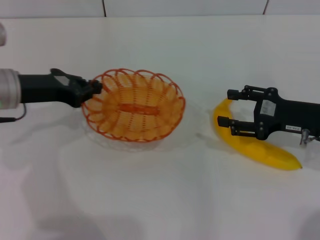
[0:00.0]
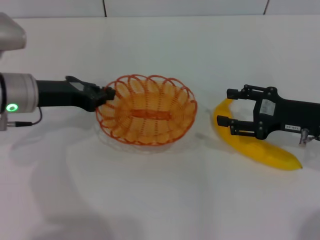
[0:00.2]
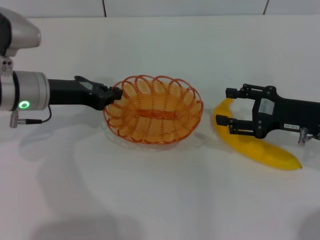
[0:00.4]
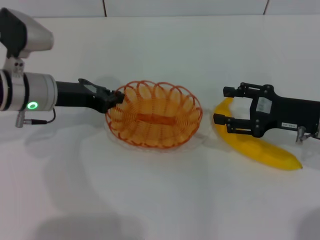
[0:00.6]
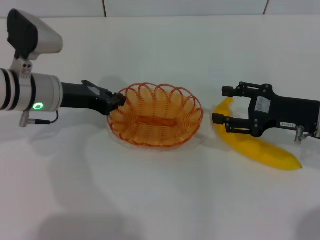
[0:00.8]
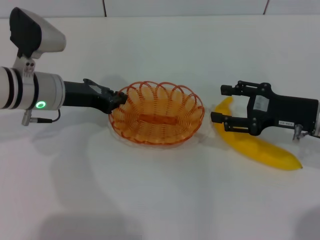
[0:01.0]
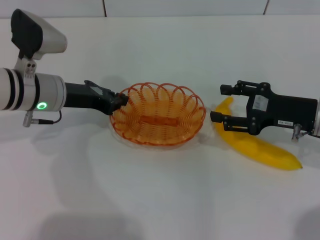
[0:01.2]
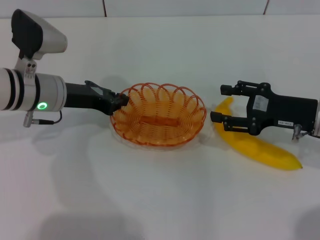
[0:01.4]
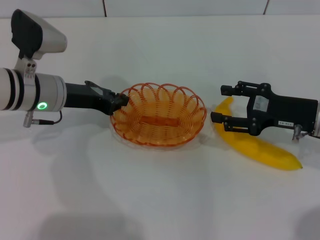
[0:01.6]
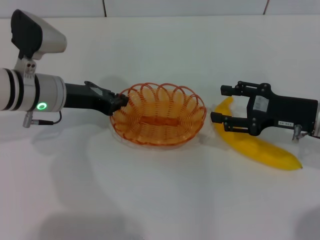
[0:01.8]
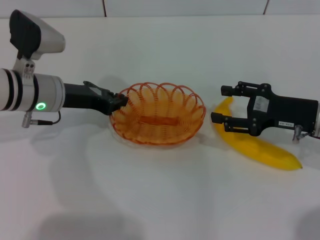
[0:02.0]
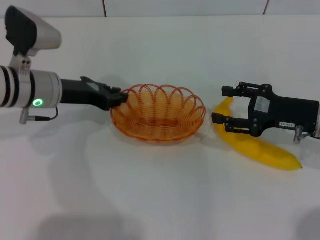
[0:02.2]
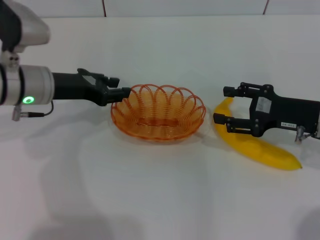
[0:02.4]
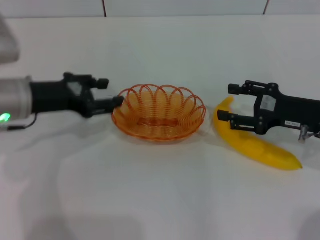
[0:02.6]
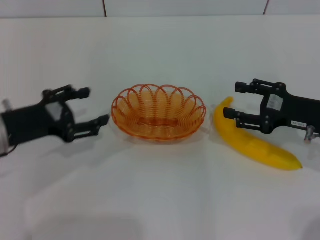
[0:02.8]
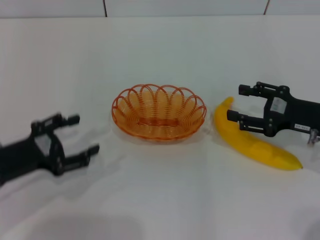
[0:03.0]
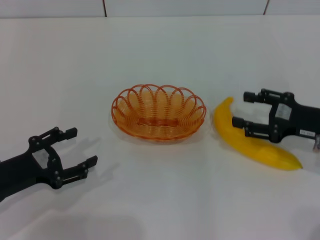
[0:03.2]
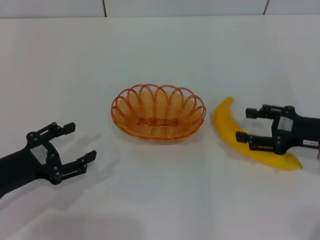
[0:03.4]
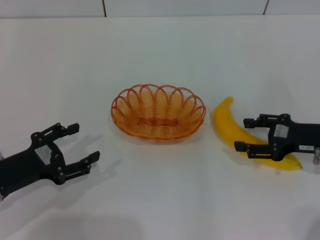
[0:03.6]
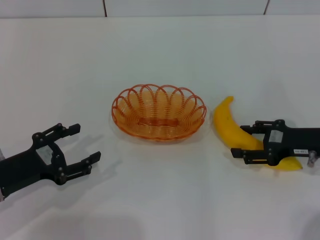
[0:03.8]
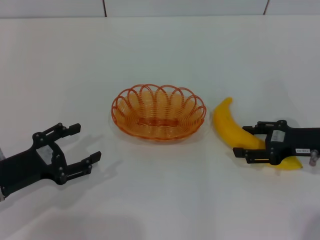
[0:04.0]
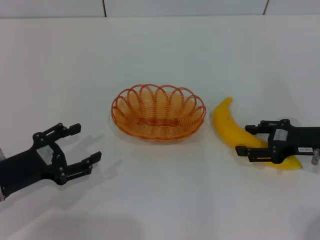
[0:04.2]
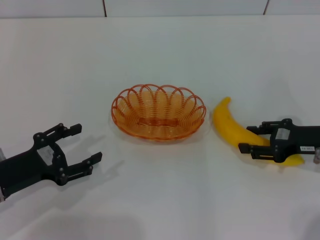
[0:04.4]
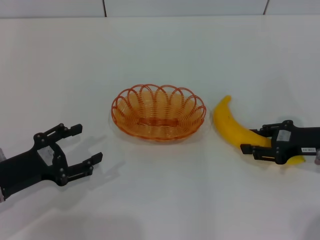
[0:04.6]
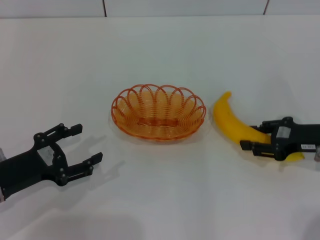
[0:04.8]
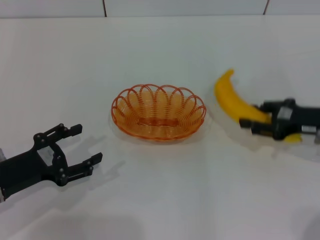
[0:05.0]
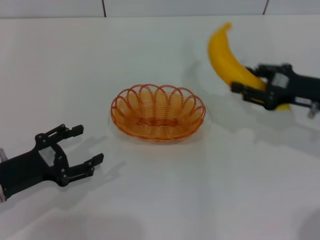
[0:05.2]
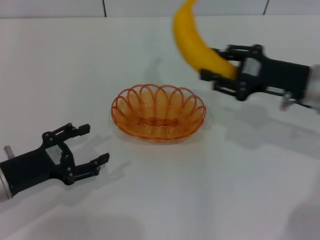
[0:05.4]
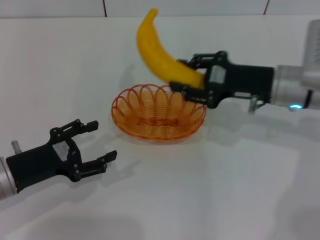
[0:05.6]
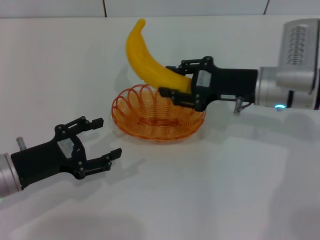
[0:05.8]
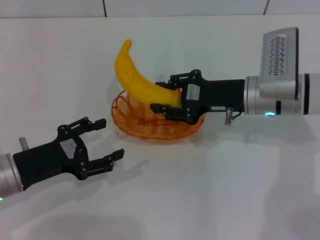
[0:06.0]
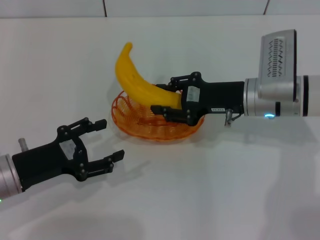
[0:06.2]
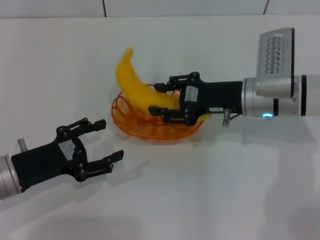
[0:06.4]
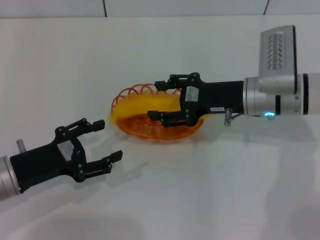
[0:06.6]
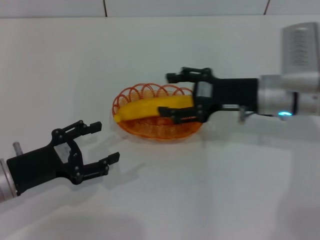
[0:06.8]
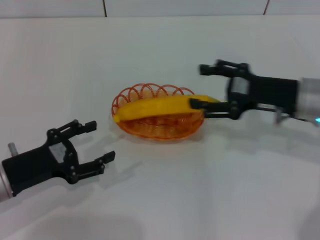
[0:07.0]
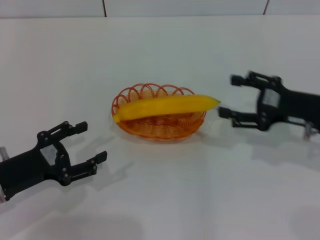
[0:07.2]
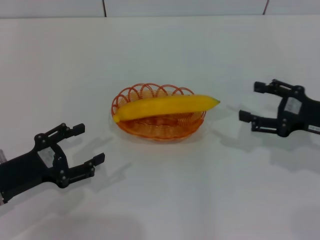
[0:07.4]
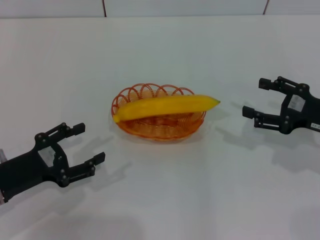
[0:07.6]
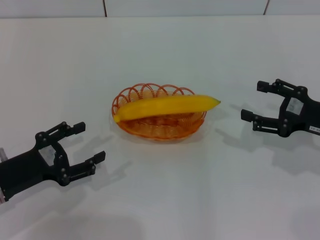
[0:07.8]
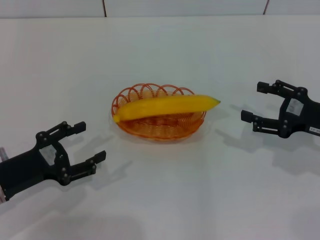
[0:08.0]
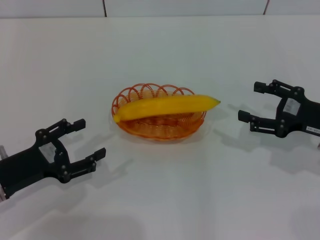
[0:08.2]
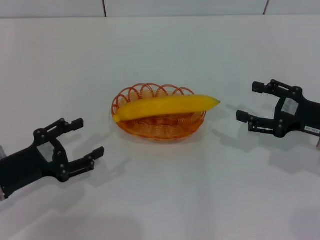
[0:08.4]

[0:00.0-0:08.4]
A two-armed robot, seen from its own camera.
Step, 0:00.0 to 0:02.6: Place the basket in the center of view with the left gripper.
Step, 0:02.8 to 0:05.0: Pick up the banana with the right gripper.
Step, 0:05.2 to 0:07.0: Place the banana into the basket with the right gripper.
0:00.0 to 0:01.4: The left gripper travels to the right by roughly 5 cm.
0:01.4 to 0:02.8: The left gripper moves backward and to the left, approximately 10 cm, and opens up.
0:02.8 to 0:04.2: The left gripper goes some 10 cm backward and downward.
0:04.2 to 0:05.6: The right gripper travels to the left and forward by some 10 cm, and closes its fingers.
0:05.6 to 0:07.0: The right gripper opens up.
0:07.0 to 0:08.4: The right gripper travels to the right by roughly 5 cm.

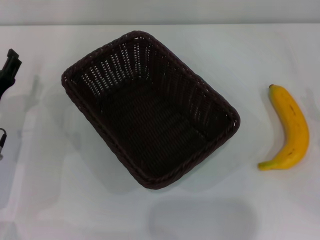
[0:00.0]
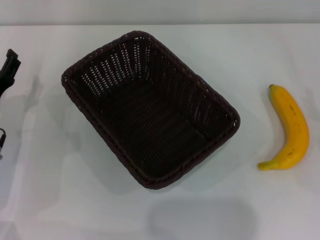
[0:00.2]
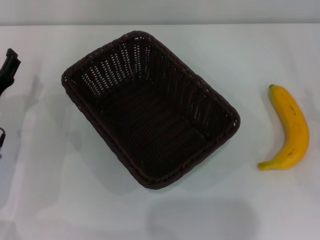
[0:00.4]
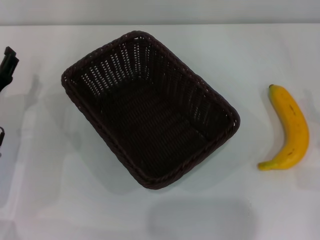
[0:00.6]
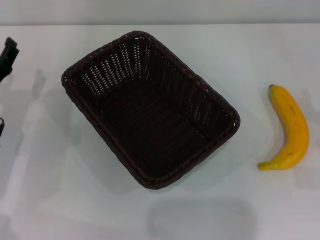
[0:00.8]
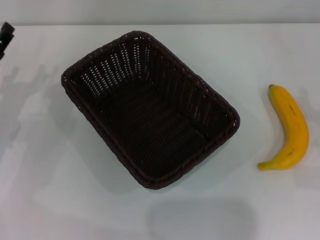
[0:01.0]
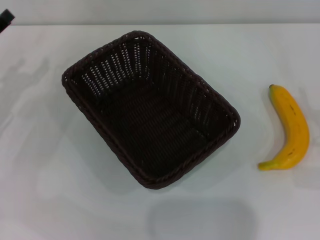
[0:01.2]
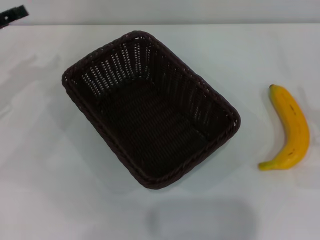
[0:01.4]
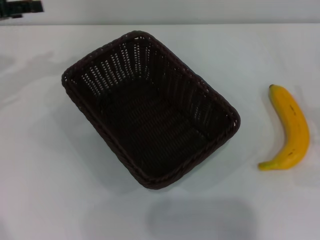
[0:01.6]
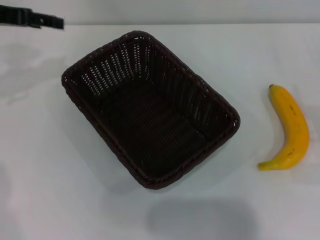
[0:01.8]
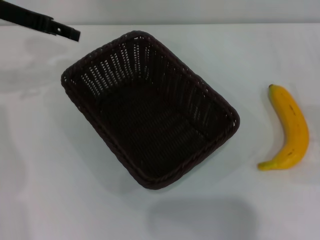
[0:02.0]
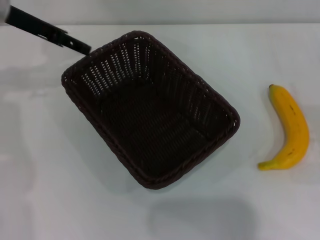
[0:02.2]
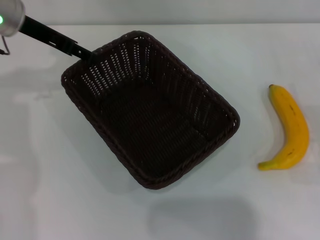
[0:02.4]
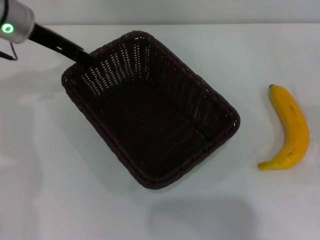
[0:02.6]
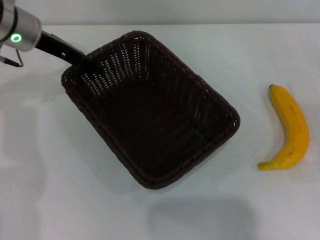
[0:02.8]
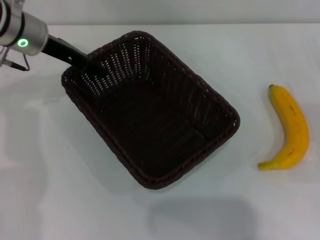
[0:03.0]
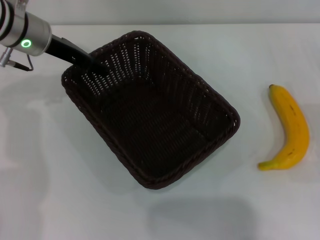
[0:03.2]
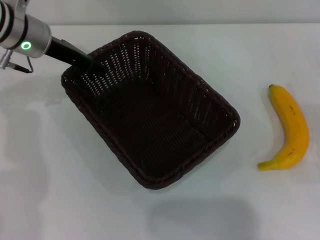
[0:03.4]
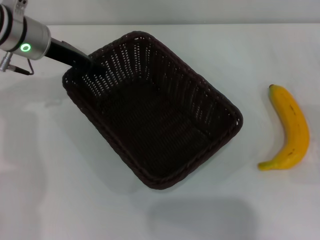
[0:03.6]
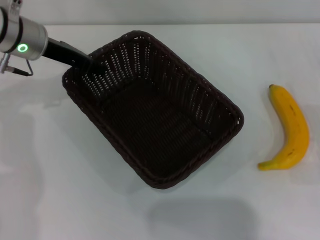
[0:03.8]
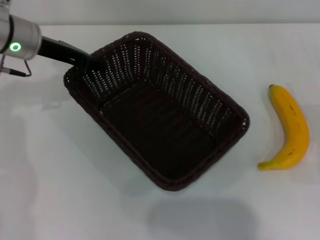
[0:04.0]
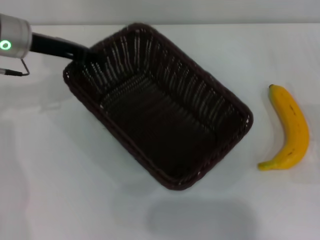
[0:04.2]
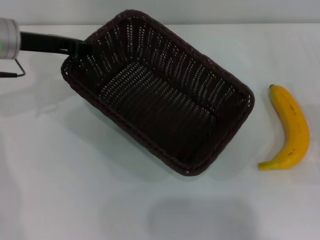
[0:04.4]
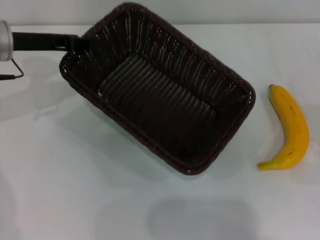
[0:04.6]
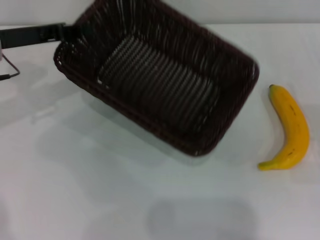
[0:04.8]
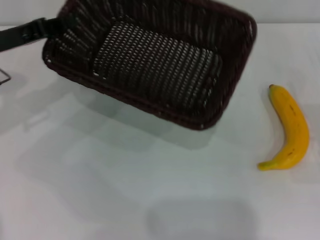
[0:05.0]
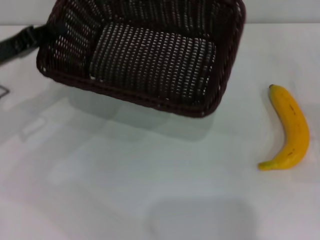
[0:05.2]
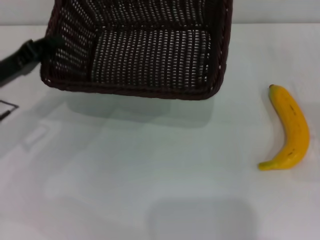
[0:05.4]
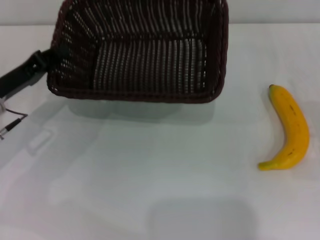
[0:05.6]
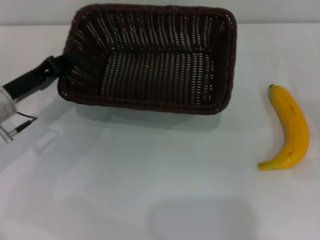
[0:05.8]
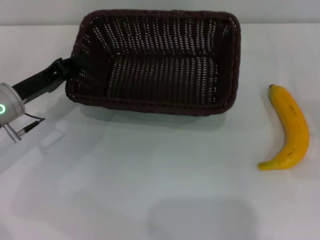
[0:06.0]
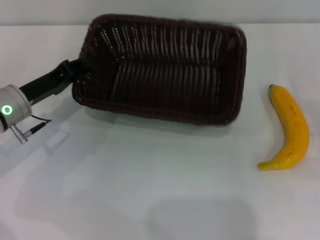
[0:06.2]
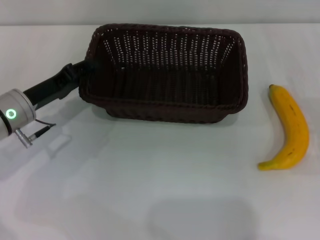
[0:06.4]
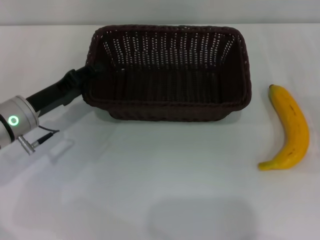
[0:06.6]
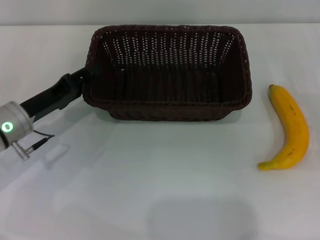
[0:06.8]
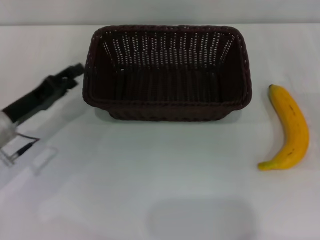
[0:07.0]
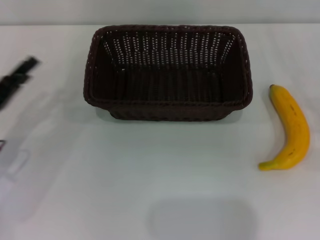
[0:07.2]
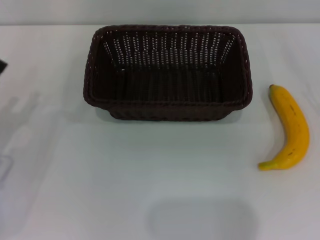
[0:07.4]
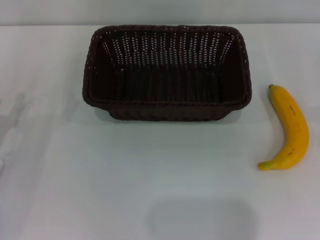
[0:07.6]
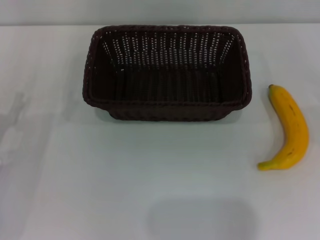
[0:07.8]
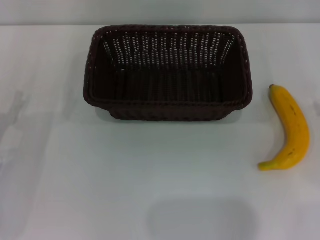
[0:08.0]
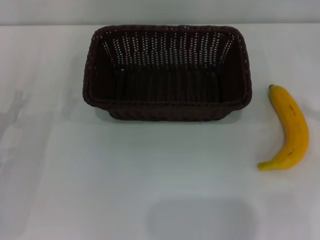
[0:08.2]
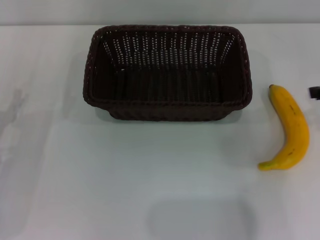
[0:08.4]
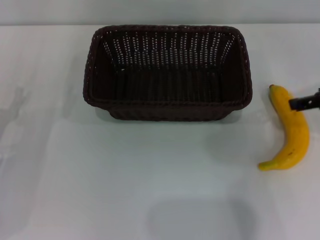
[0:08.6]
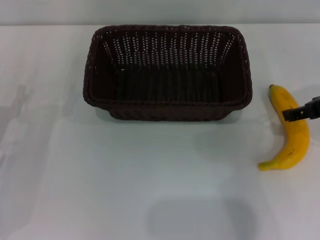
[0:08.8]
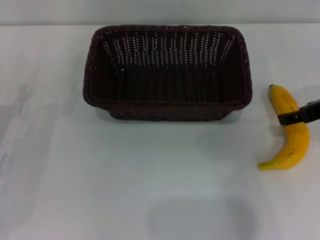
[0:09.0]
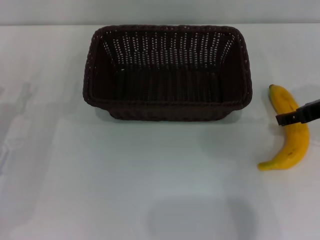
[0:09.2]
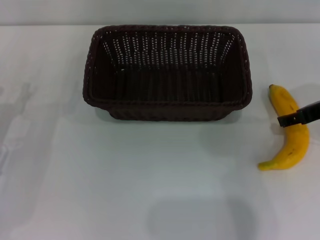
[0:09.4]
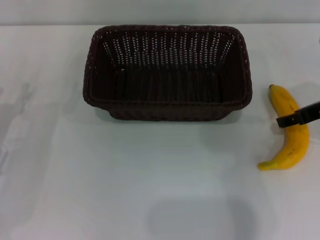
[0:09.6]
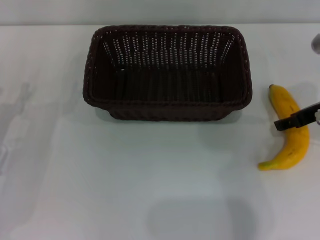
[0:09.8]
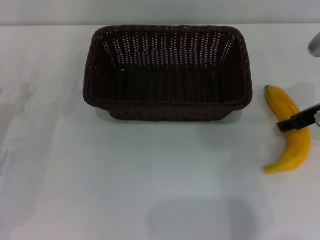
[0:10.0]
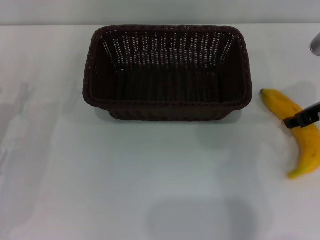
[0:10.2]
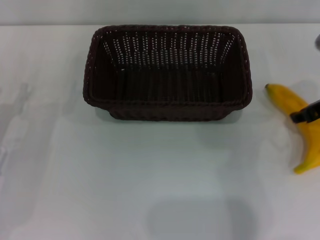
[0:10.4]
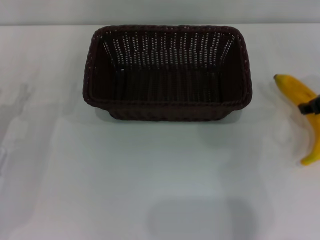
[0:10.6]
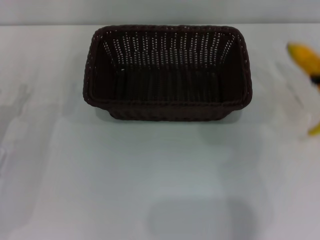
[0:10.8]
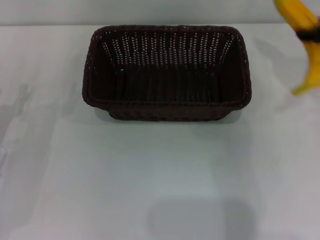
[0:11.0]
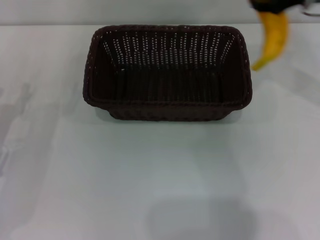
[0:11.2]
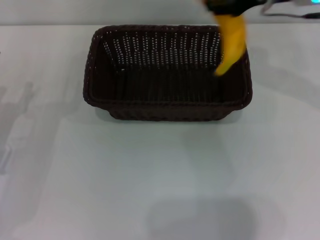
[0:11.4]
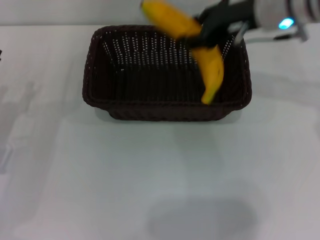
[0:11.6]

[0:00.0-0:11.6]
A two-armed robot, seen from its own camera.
Step, 0:00.0 to 0:04.4: Pick up the dark basket with the left gripper.
Step, 0:04.8 to 0:07.0: Place the dark basket in the center of view with the left gripper.
Step, 0:07.2 to 0:10.6: Pick up the banana with the right gripper.
0:00.0 to 0:01.4: The left gripper travels upward, forward and to the left by some 15 cm.
0:01.4 to 0:02.8: The left gripper moves to the right and forward, roughly 15 cm.
0:02.8 to 0:04.4: The left gripper closes.
0:04.4 to 0:05.8: The left gripper heads downward and backward, covering some 10 cm.
0:05.8 to 0:07.2: The left gripper heads backward, covering approximately 5 cm, and opens up.
0:07.2 to 0:08.8: The right gripper shifts approximately 15 cm upward and to the left.
0:08.8 to 0:10.2: The right gripper ends up roughly 5 cm from where it was, and closes up.
0:10.2 to 0:11.6: The right gripper shifts about 15 cm to the left, upward and forward.

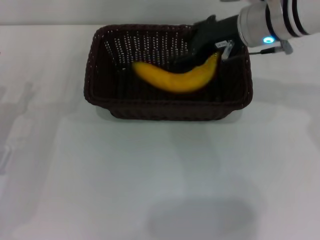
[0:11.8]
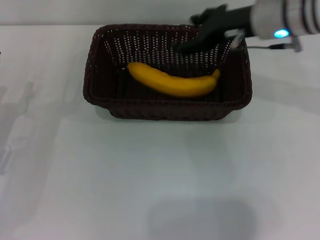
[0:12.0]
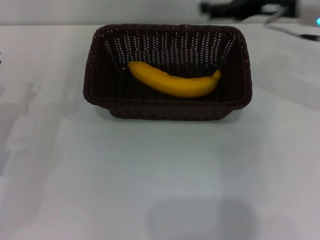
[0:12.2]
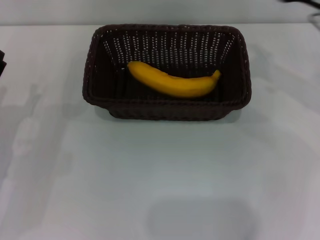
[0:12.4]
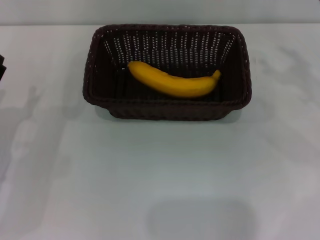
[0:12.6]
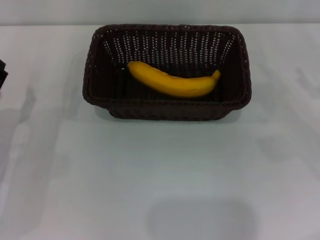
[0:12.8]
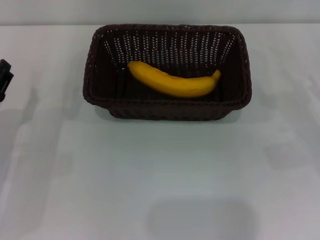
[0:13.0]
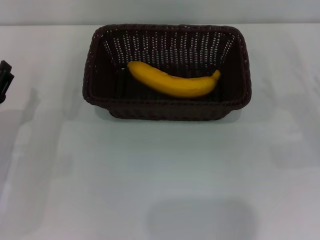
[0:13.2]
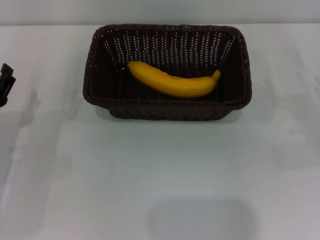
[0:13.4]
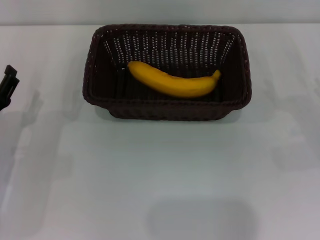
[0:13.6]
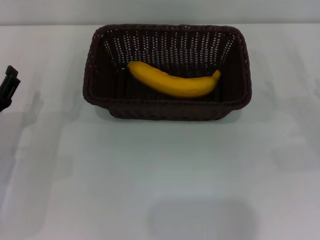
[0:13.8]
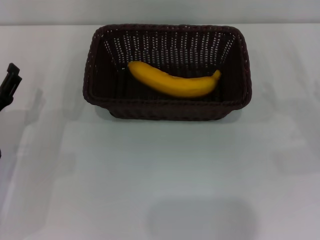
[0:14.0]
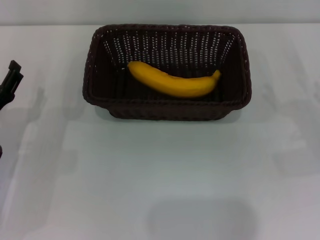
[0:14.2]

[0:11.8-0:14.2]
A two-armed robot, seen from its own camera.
0:11.8 to 0:13.0: The right gripper moves to the right, downward and backward, roughly 30 cm, and opens.
